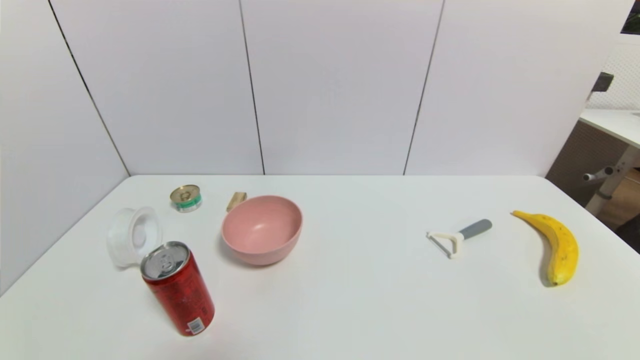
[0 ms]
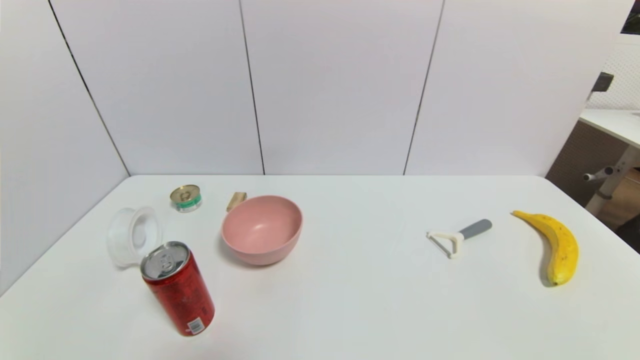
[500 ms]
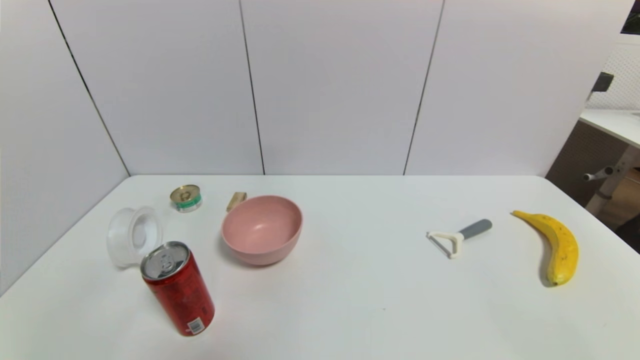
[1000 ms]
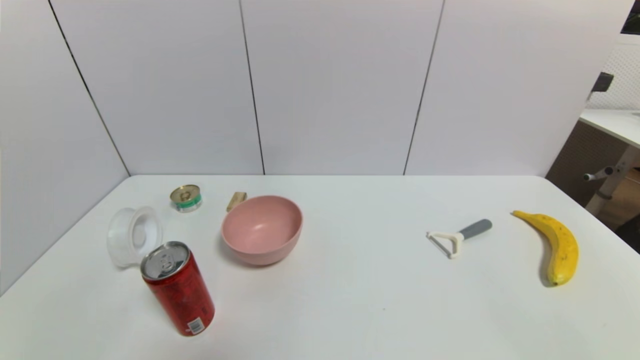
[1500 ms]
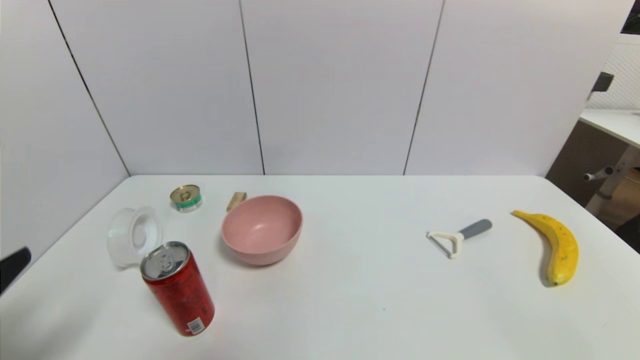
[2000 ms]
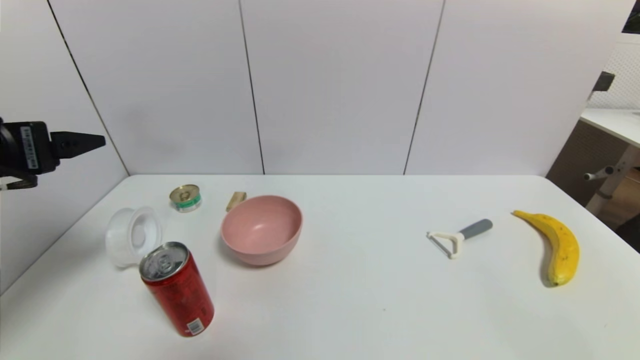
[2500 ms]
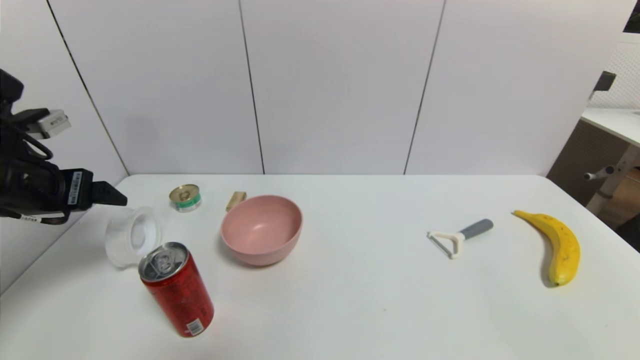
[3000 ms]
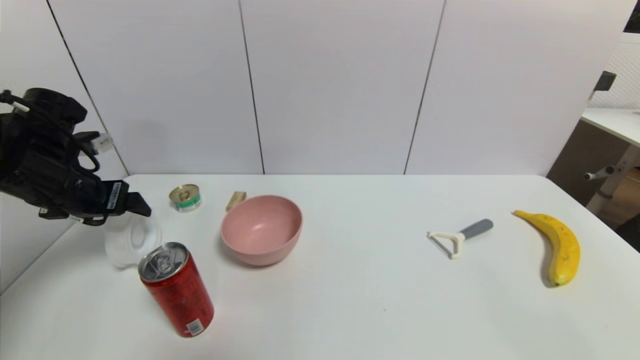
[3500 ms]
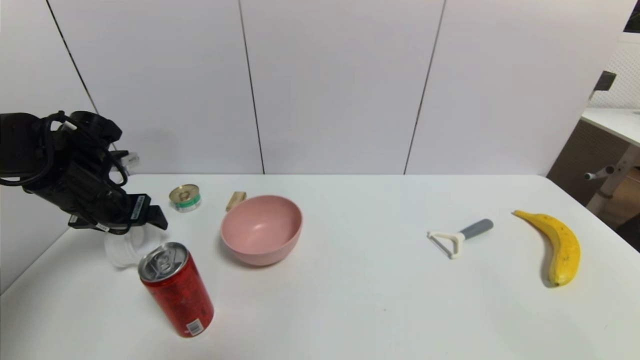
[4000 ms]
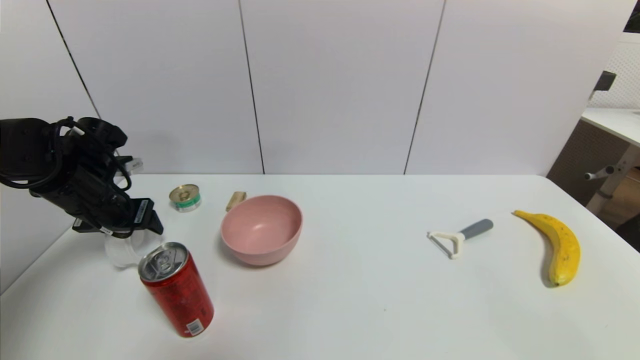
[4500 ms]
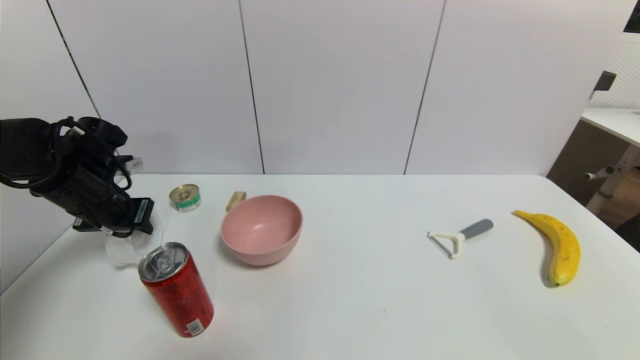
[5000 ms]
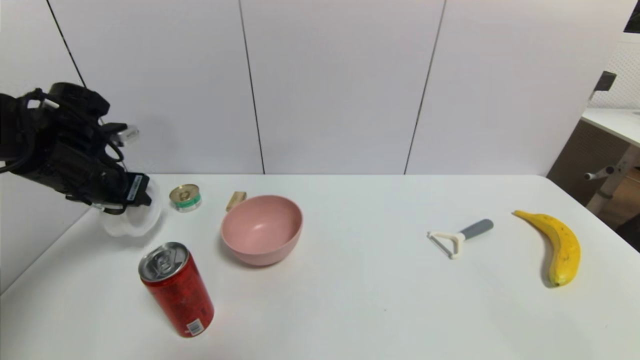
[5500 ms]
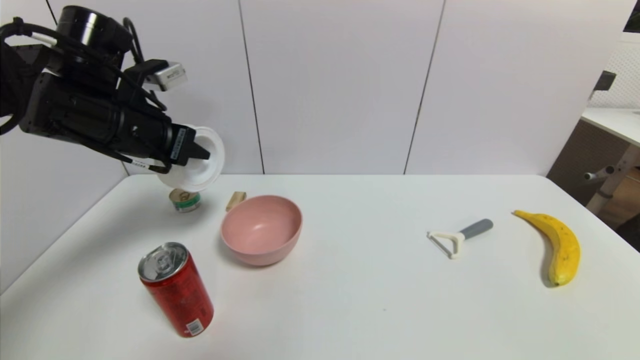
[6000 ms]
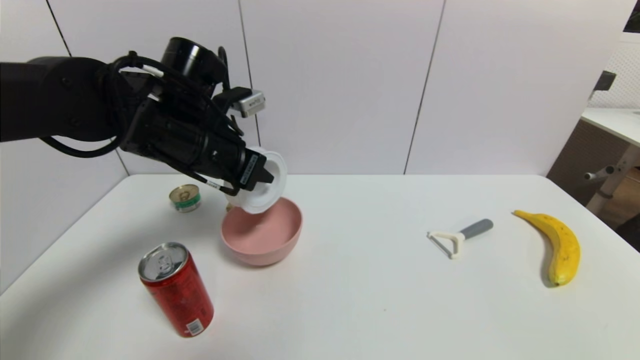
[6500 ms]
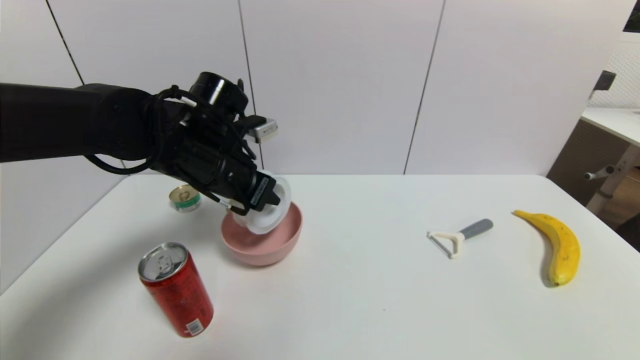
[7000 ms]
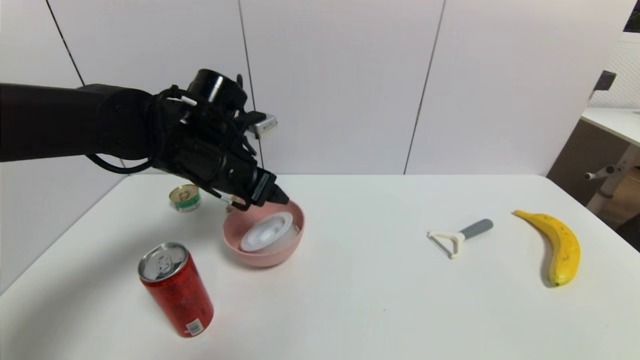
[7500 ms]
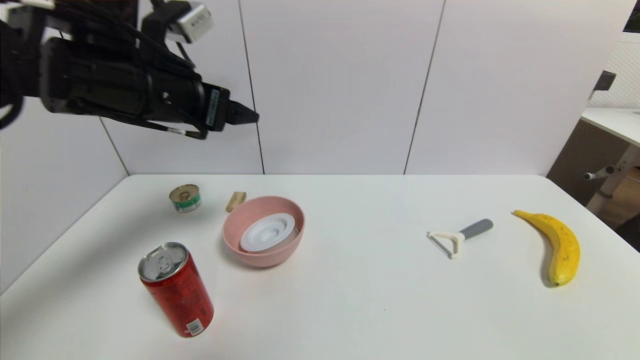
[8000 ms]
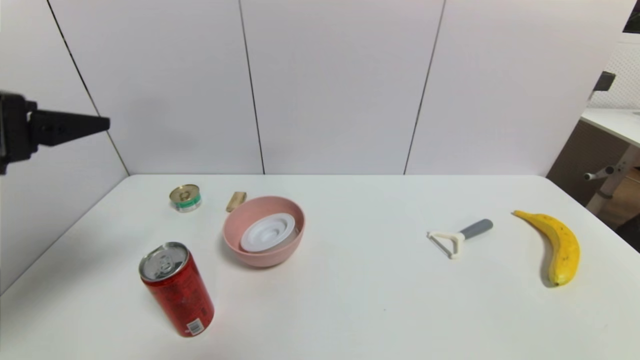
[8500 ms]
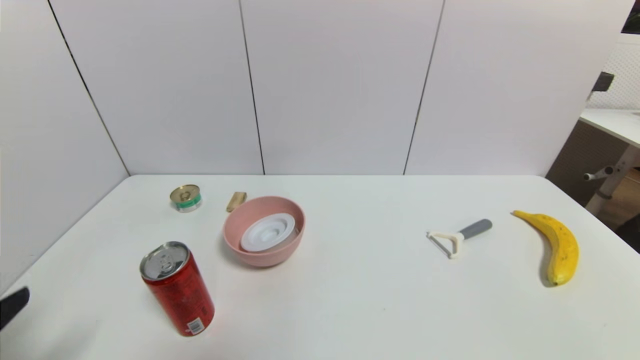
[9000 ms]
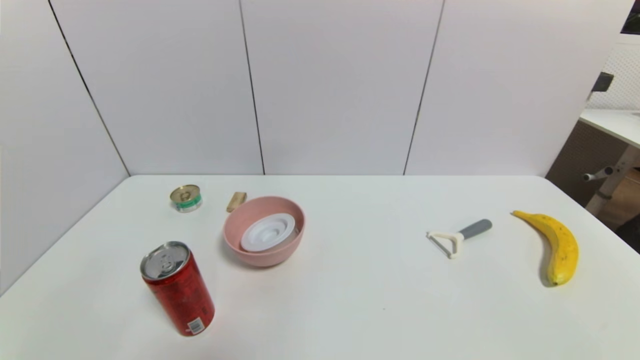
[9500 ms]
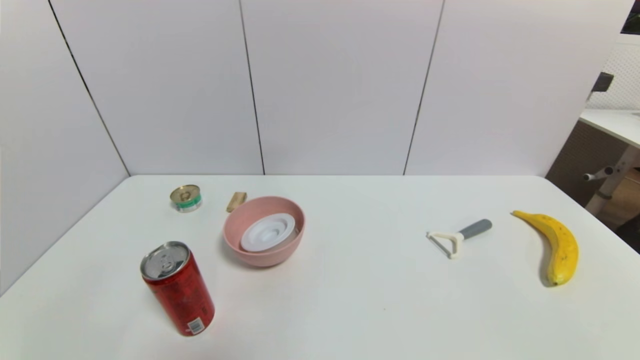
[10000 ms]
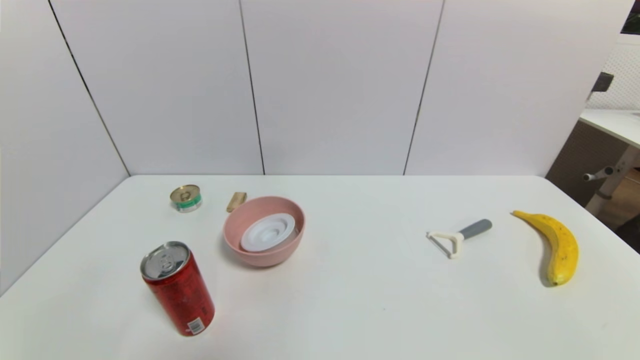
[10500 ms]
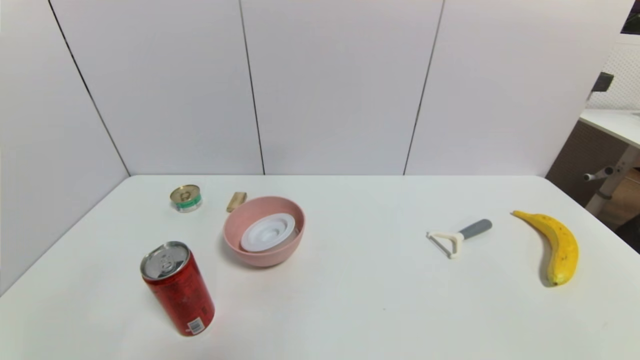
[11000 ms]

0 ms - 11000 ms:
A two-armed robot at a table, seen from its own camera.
Task of the whole recording: use a gripper to pick the target object and place on the pink bowl.
Step, 0 ms - 4500 ms: Grasp the tape with the left gripper.
Step, 5000 ms - 7000 ms: Place the tape on the pink bowl with the left gripper.
0 ms - 2000 ms: The left gripper heads upward, covering approximately 15 cm.
2000 ms - 3500 ms: The left gripper shifts approximately 25 cm forward.
3500 ms - 5500 ms: The left gripper closes up.
5500 ms - 7500 ms: The left gripper is displaced to the right by approximately 15 cm, and opens up.
7500 ms - 9000 ms: The left gripper heads backward and to the left, covering approximately 35 cm.
9000 ms - 11000 ms: The left gripper goes roughly 15 cm downward.
